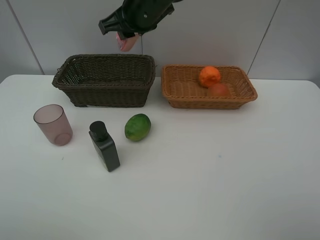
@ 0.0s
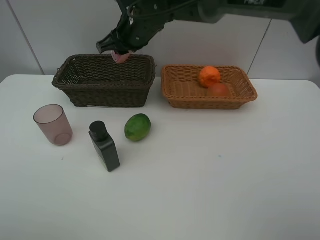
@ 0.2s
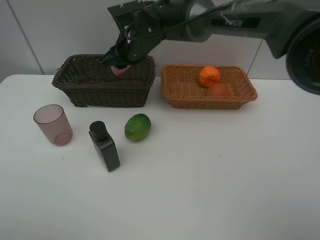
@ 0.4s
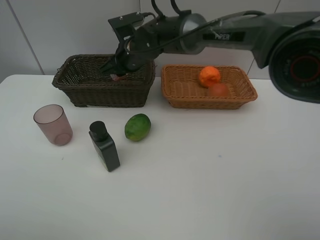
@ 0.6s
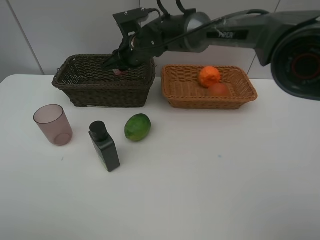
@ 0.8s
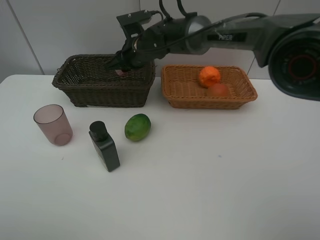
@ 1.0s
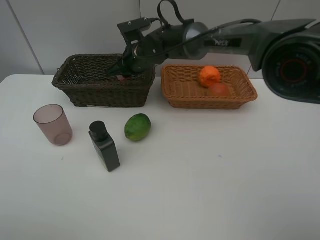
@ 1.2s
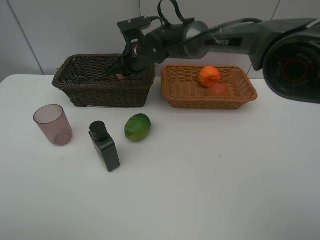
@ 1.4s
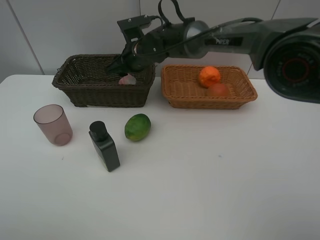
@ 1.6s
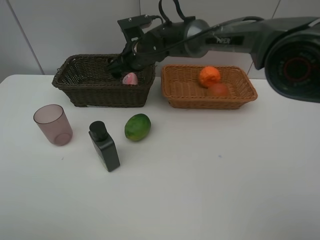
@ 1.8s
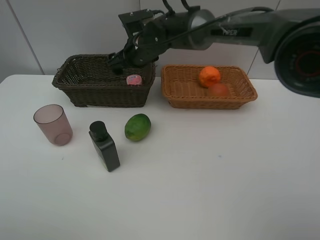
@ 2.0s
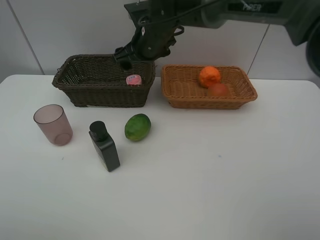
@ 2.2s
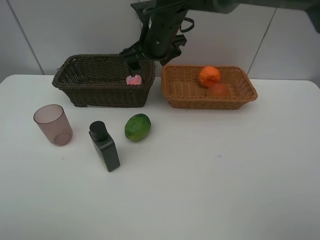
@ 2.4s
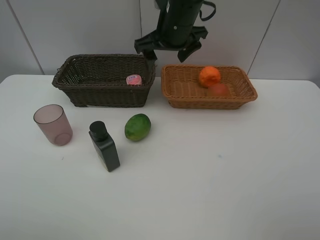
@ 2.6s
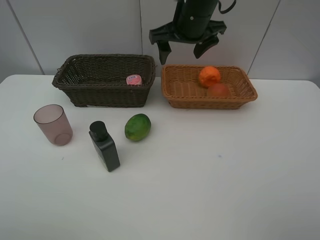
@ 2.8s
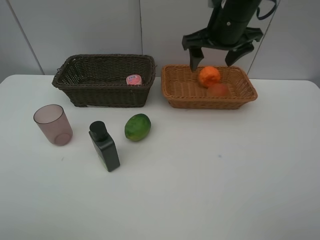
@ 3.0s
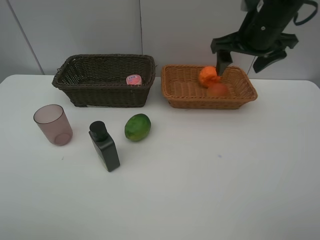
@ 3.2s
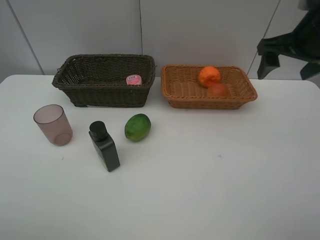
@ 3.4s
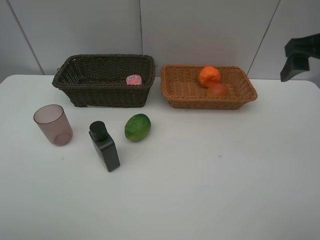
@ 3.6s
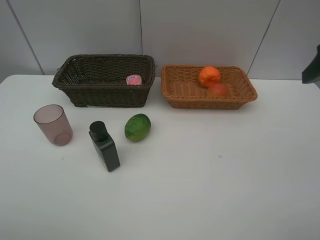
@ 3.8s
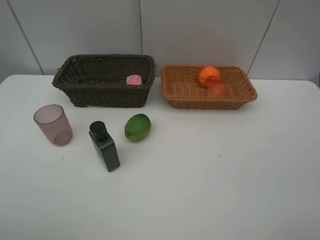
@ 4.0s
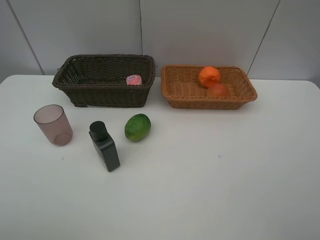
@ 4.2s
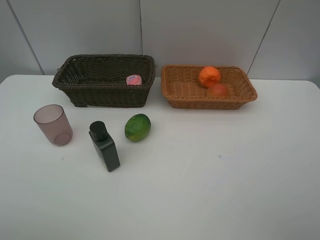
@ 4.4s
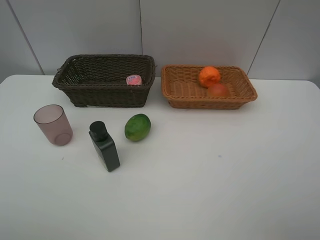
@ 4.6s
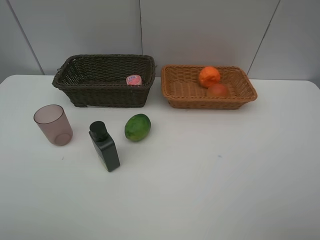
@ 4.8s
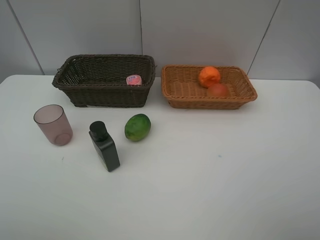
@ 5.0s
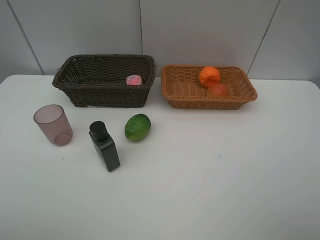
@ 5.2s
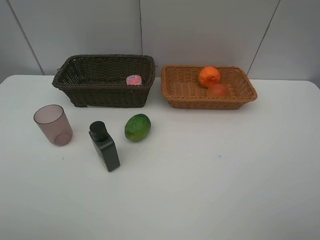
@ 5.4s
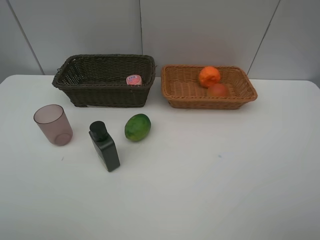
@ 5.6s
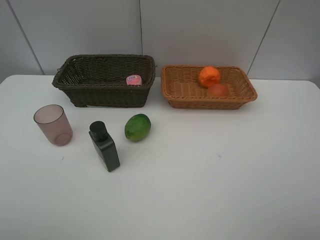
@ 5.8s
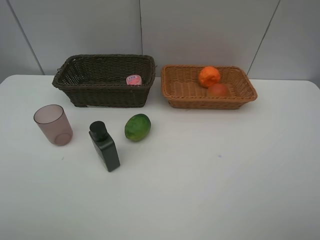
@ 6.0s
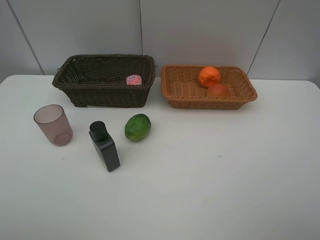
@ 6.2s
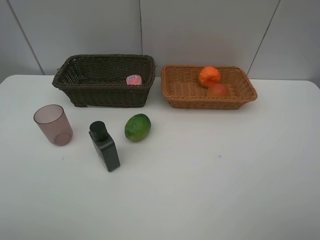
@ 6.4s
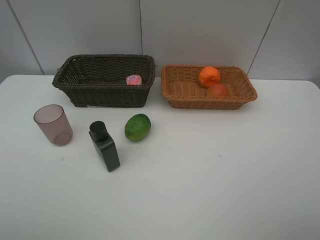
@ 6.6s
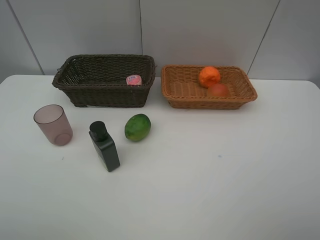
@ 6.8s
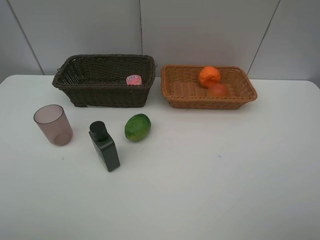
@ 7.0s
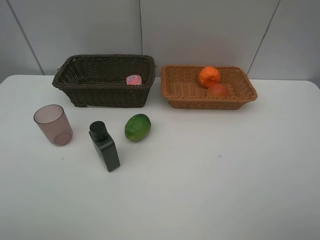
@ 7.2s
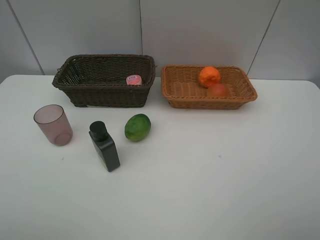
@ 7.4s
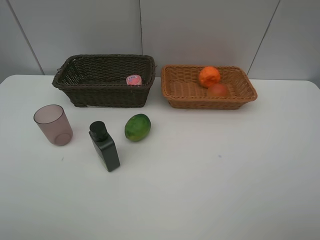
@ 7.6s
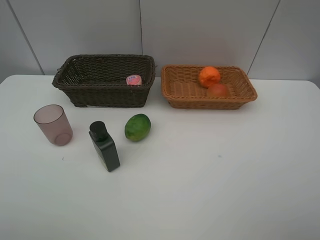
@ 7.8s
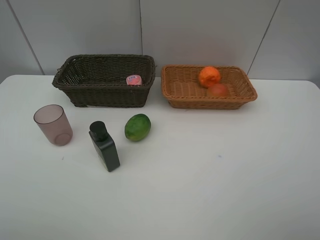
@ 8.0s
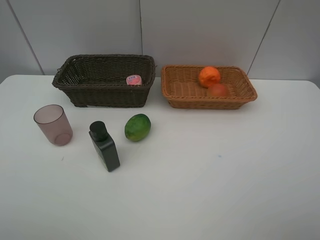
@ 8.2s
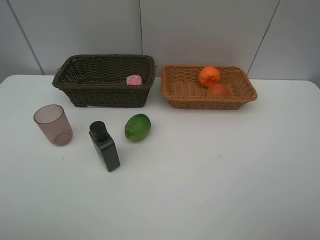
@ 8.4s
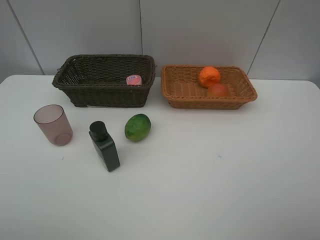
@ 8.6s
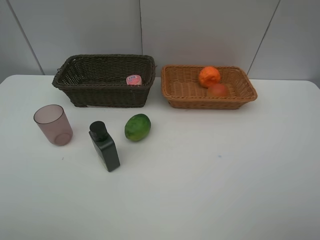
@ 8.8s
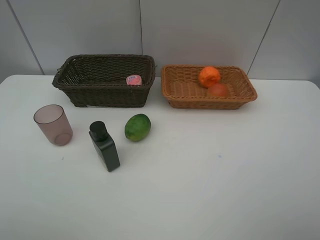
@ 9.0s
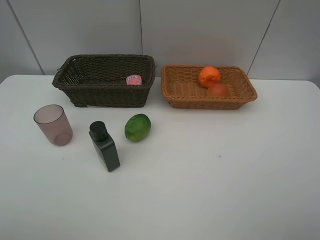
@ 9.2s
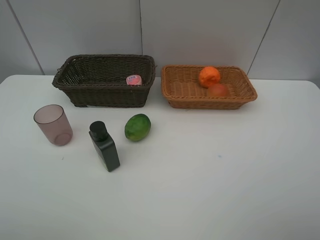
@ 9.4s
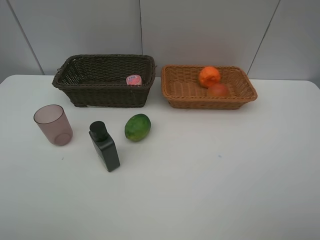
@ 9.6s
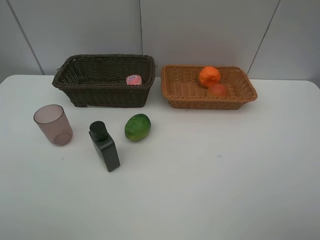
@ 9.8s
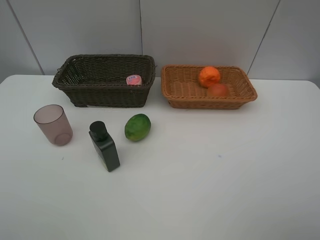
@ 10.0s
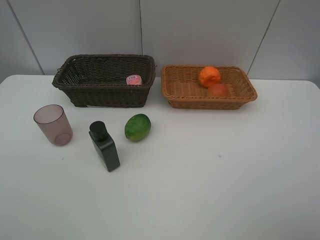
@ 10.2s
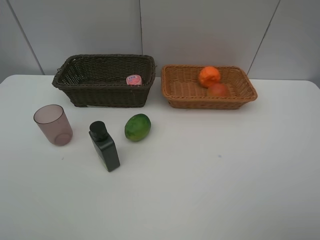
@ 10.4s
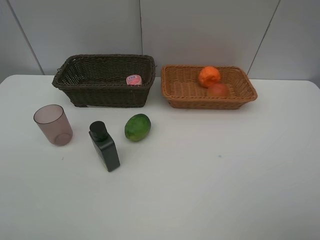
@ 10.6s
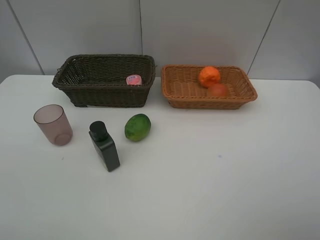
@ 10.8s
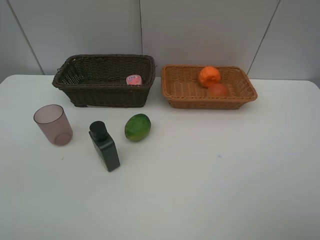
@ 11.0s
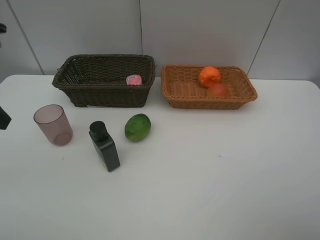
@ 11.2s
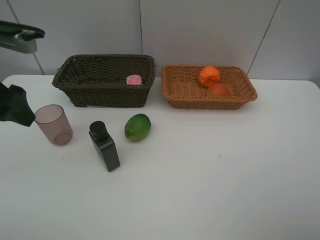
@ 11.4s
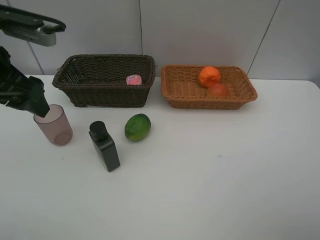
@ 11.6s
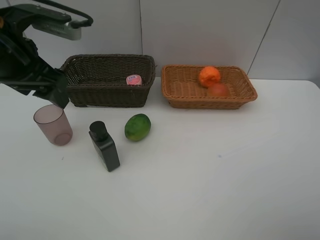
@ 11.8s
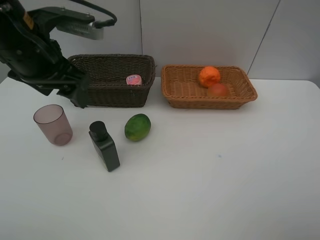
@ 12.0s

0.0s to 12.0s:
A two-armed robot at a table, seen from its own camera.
Task of the whole recording: place multiple objects separately in different baskets.
0.0s to 1.6s: The right gripper is displaced downward and forward by about 15 cm.
1.6s to 3.0s: The right gripper shifts about 25 cm to the right, upward and backward, and opens up.
3.0s to 4.4s: The right gripper heads backward and to the right, covering roughly 35 cm.
6.0s to 9.0s: Both grippers stay put.
10.4s to 12.0s: The left gripper goes roughly 20 cm forward and to the right.

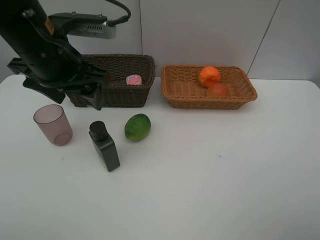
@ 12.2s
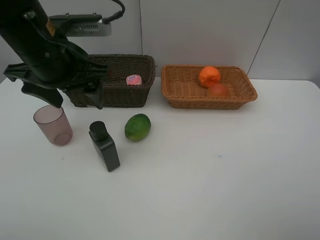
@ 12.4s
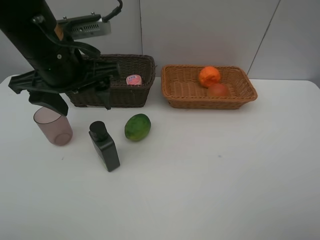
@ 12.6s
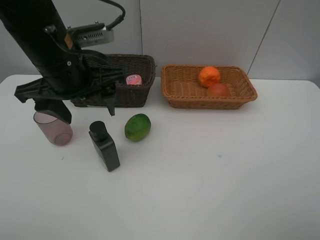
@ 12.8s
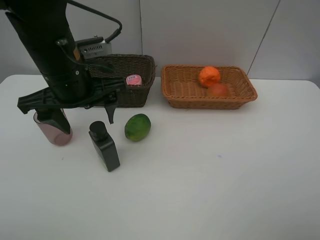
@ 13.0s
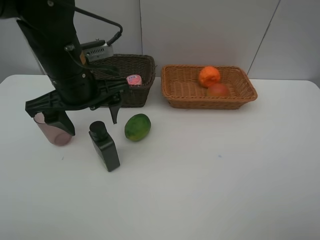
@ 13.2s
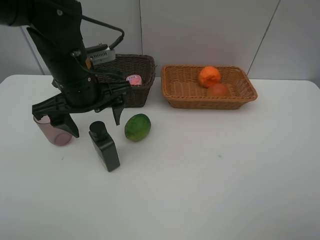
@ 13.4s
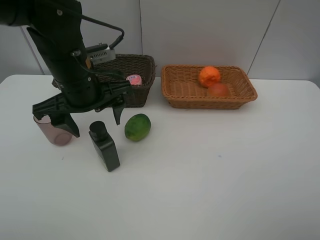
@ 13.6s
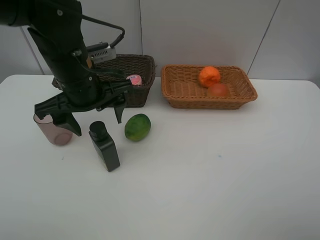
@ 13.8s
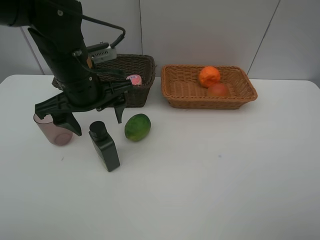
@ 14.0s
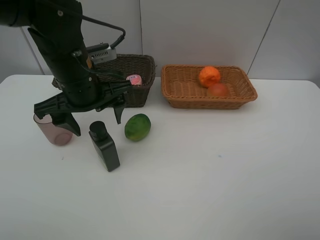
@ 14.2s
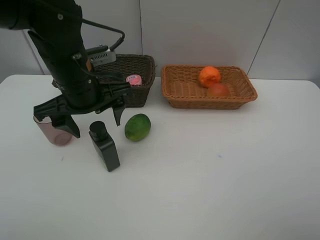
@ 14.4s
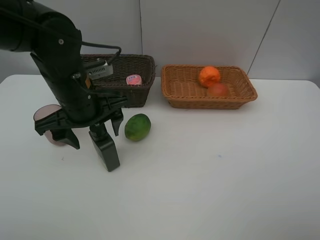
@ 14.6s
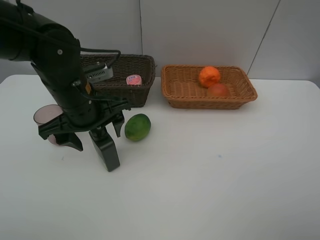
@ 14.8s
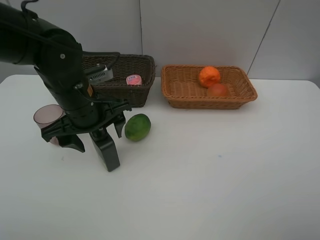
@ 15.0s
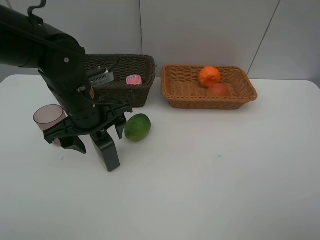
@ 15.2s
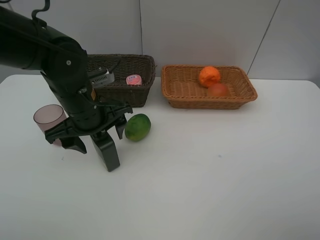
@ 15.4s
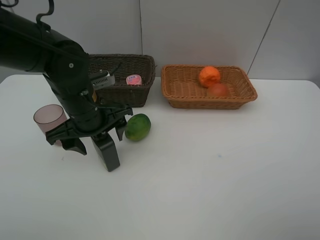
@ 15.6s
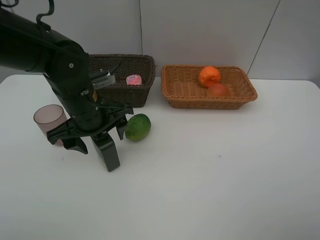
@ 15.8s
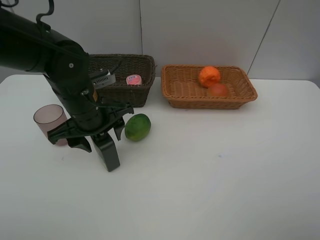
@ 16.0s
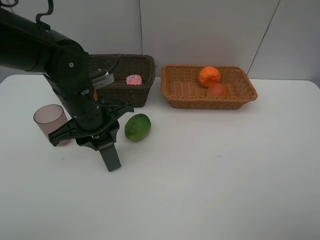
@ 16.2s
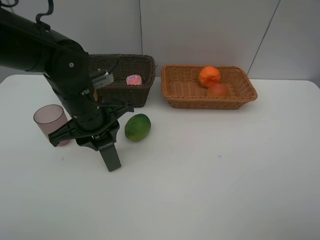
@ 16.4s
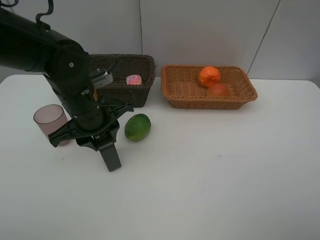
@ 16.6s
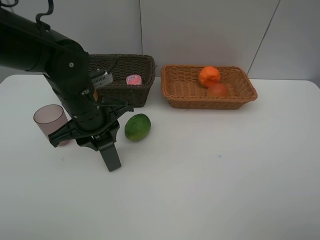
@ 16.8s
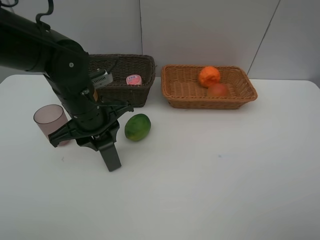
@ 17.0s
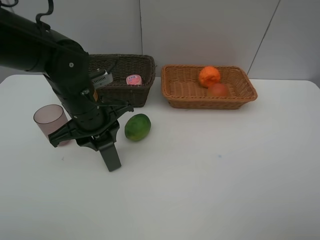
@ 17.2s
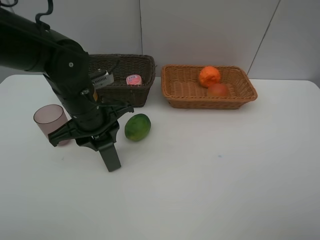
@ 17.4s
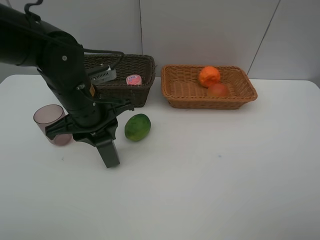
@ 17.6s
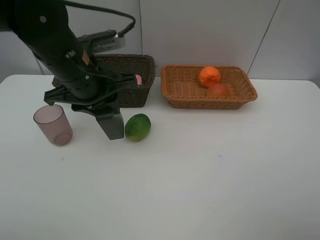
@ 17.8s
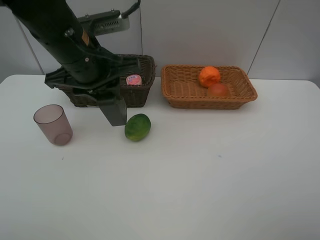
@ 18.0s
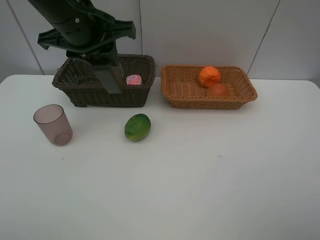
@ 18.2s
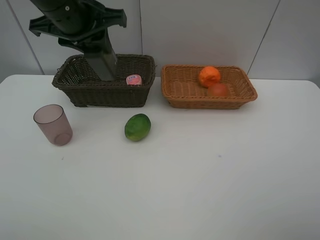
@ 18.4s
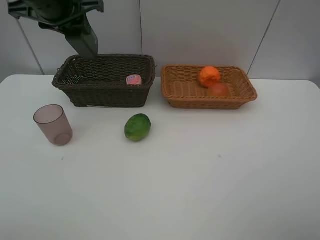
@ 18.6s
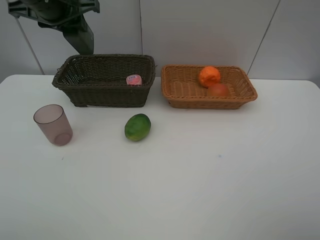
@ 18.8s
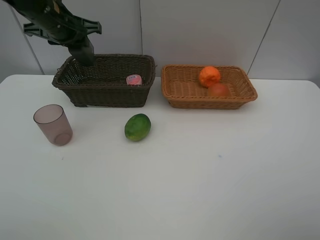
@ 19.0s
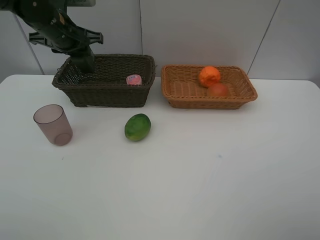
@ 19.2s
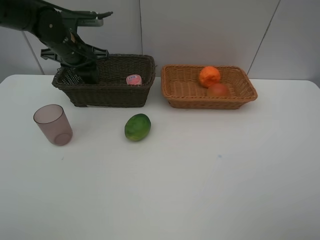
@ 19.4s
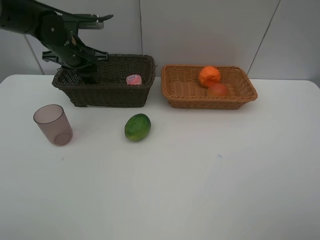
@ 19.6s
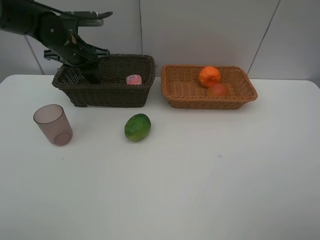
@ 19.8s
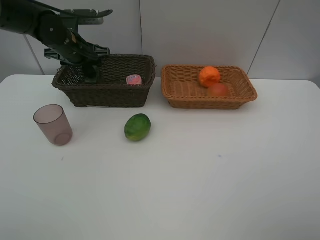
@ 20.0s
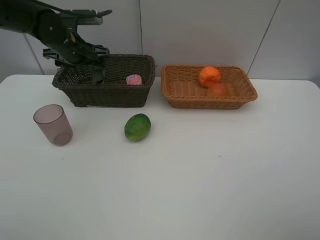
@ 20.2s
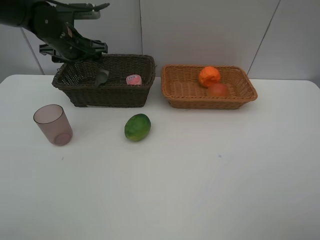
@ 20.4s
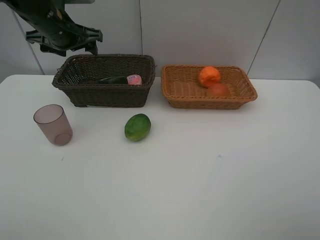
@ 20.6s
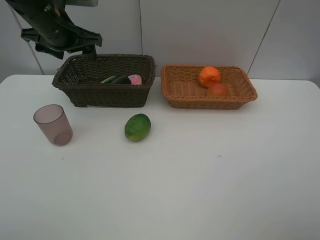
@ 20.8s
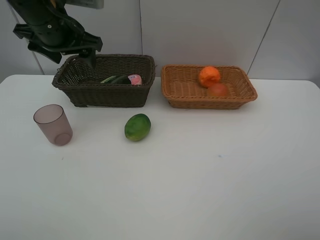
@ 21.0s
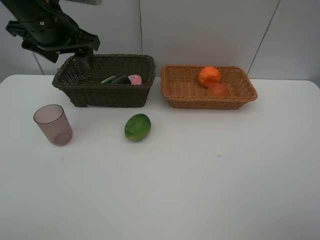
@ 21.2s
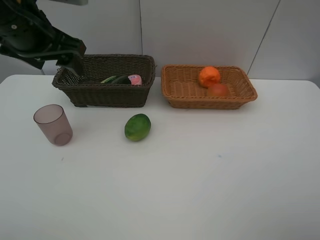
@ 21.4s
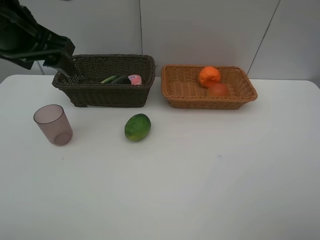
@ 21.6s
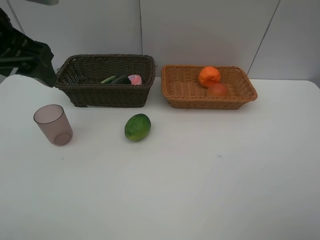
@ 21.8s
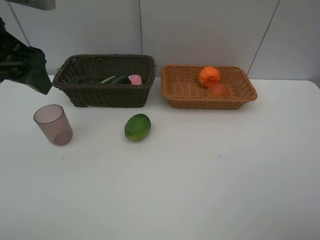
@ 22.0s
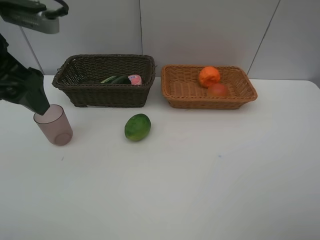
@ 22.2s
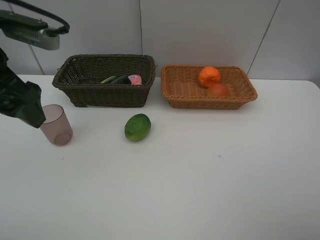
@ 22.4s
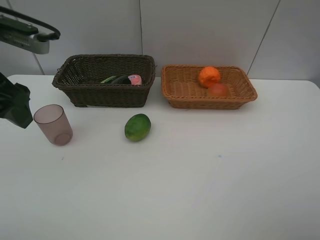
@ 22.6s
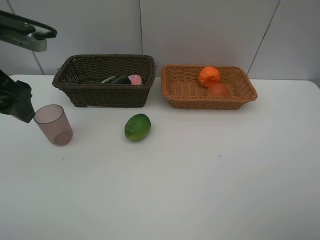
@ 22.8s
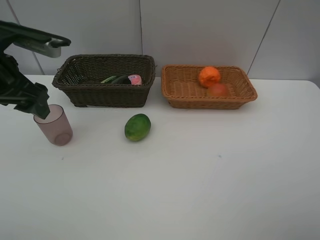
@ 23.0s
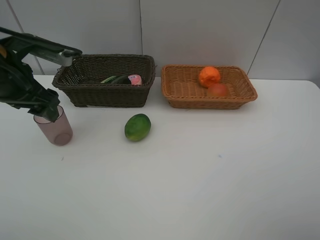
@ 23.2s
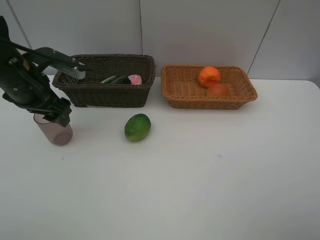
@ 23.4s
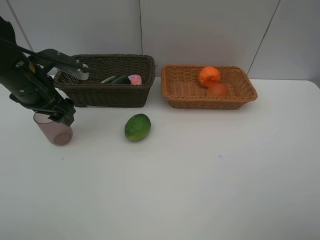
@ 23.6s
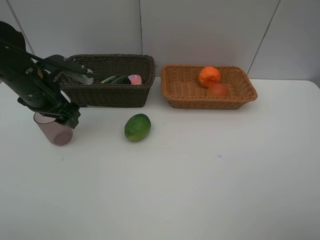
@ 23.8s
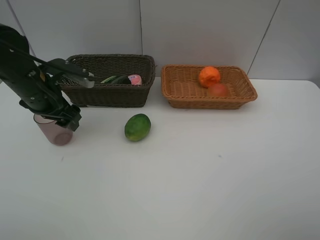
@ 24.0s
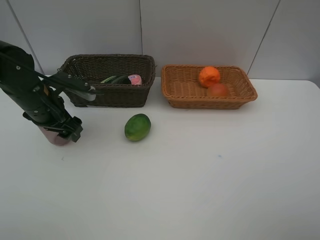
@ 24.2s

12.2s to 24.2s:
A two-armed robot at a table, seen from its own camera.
Task of the whole recording: place multiple objects separately in different baskets.
12.2s to 13.8s: The left gripper travels downward by about 5 cm.
13.8s to 15.2s: The left gripper changes place by approximately 5 cm.
15.2s to 16.6s: The left gripper closes up.
16.6s to 18.2s: The left gripper shifts roughly 15 cm upward.
18.2s to 19.8s: The left gripper goes approximately 20 cm forward, downward and to the left.
19.8s to 21.2s: The left gripper moves backward and upward, approximately 15 cm, and opens up.
21.2s to 22.6s: The left gripper shifts about 10 cm backward and to the left.
22.6s to 24.2s: The left gripper goes approximately 15 cm downward and forward.
